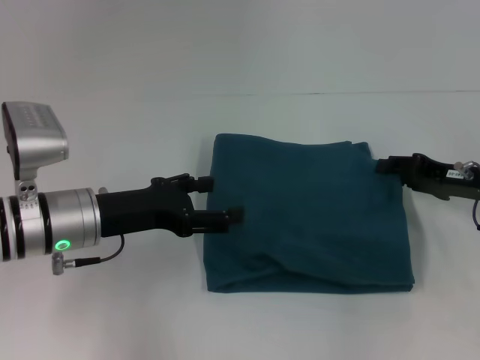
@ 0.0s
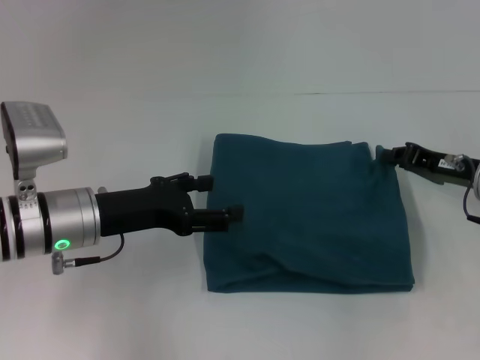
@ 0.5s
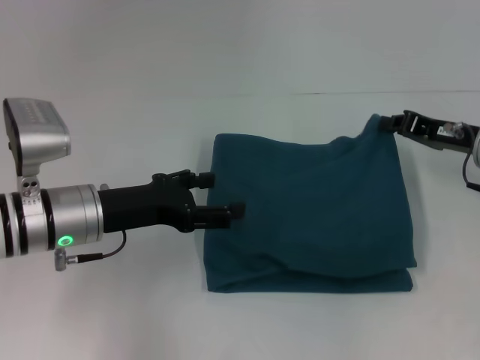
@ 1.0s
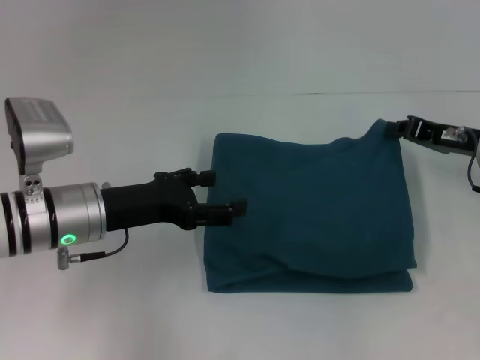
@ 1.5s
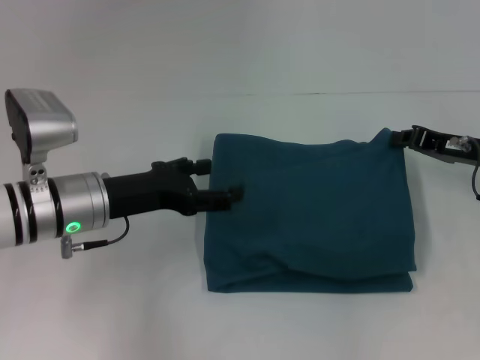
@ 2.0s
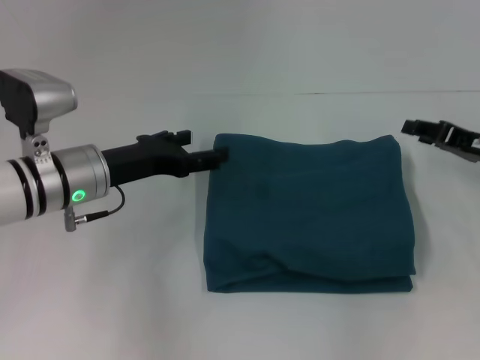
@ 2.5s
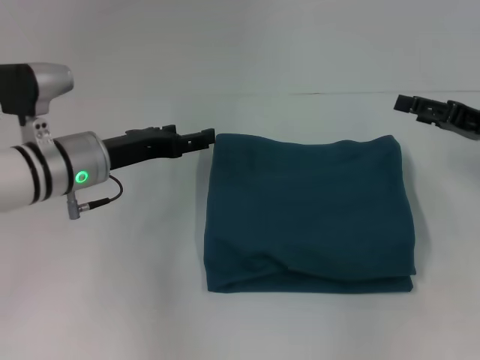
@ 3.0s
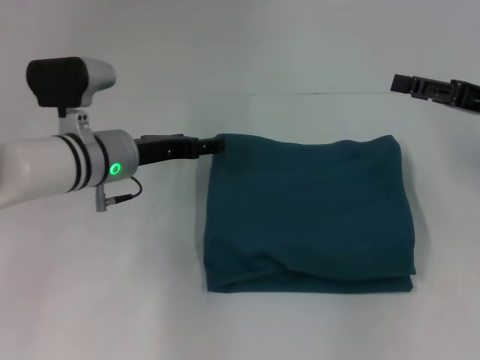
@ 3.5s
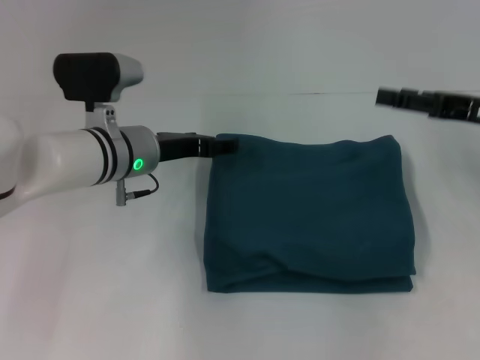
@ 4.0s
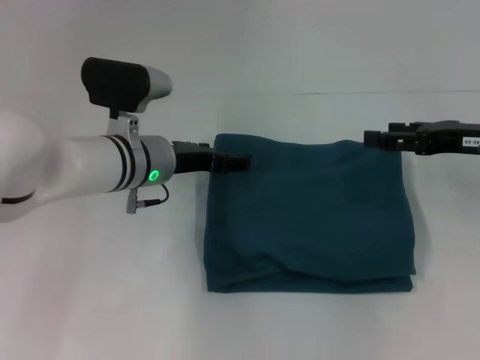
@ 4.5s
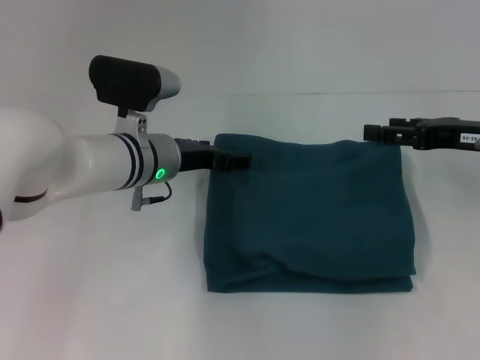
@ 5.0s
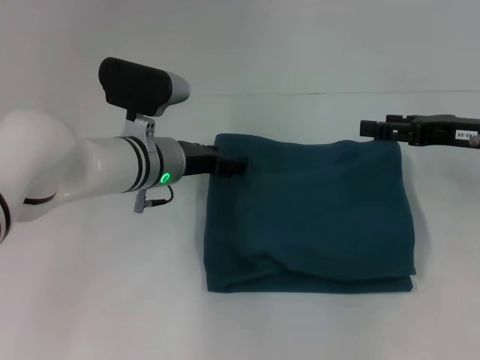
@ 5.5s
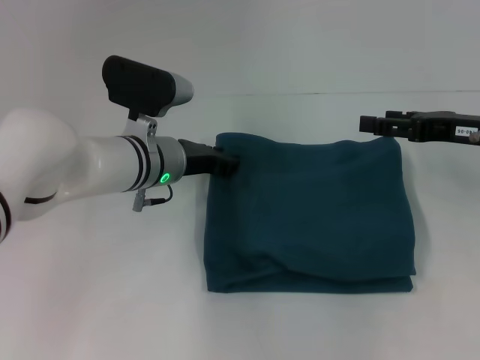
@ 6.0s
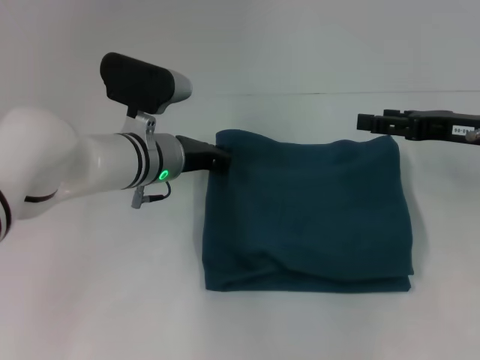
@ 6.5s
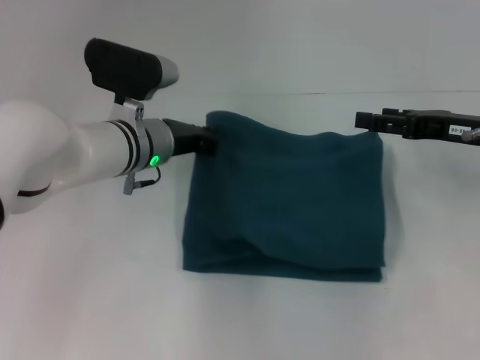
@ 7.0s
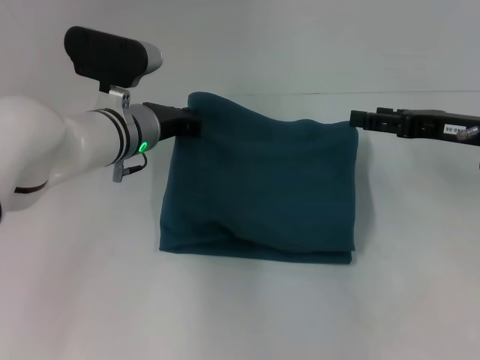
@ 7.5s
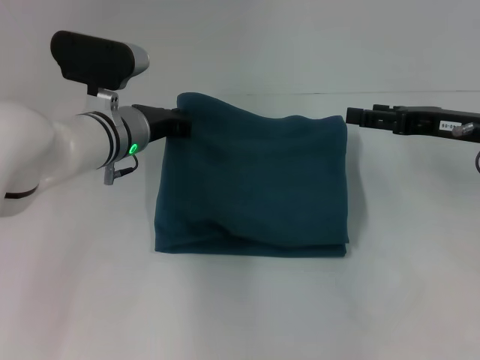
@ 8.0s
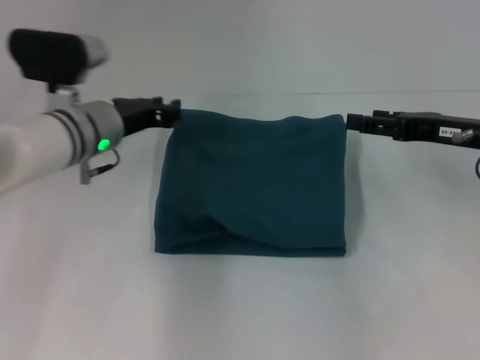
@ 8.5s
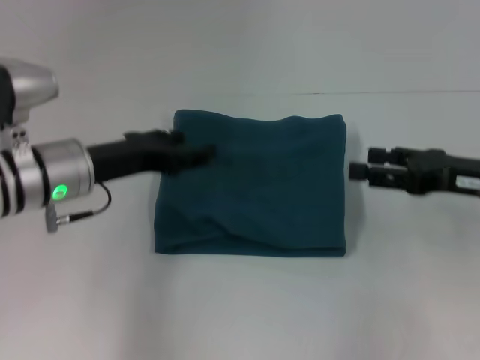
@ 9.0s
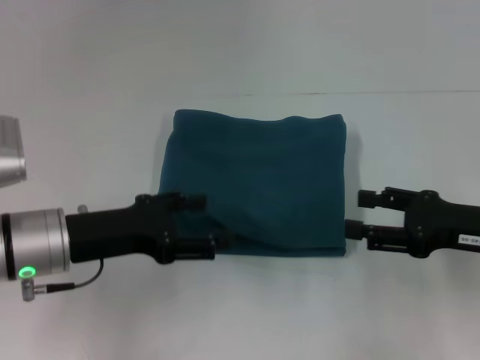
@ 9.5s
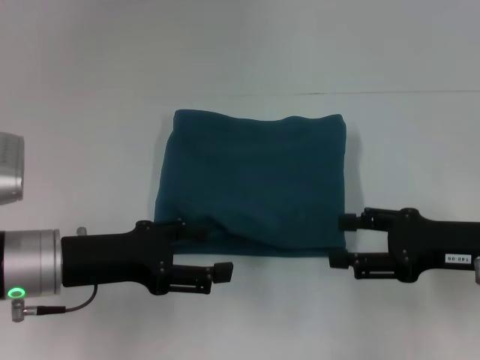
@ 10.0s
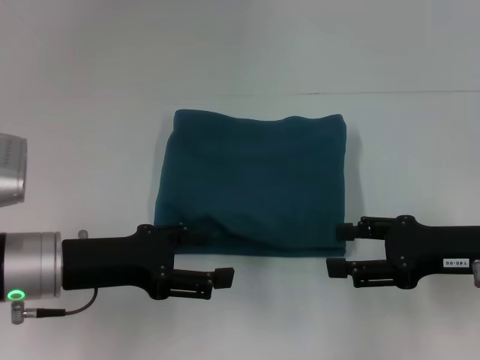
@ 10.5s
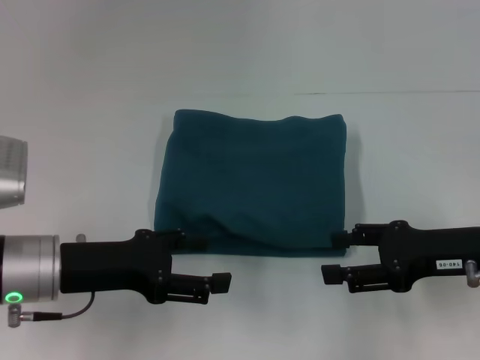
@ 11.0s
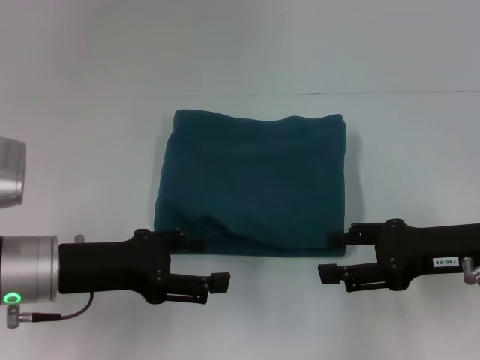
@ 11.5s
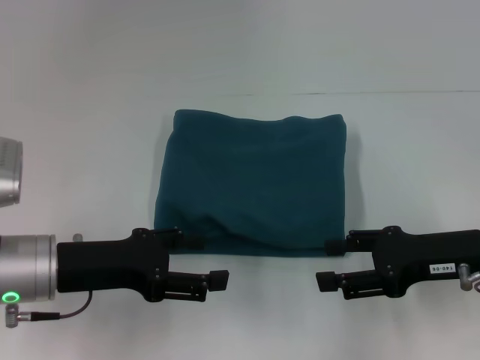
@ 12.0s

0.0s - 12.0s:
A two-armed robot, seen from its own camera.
0.0s - 2.0s: The right gripper closes.
2.0s - 4.0s: The right gripper goes approximately 5 cm upward, and opens, while the left gripper heads forward, covering some 5 cm.
4.0s - 6.0s: The left gripper closes.
6.0s - 8.0s: The left gripper closes its fingers.
8.0s - 10.0s: The right gripper is displaced backward by some 10 cm. Meanwhile the left gripper shifts roughly 15 cm backward and to the left, and opens.
10.0s - 12.0s: The grippers move only a little.
